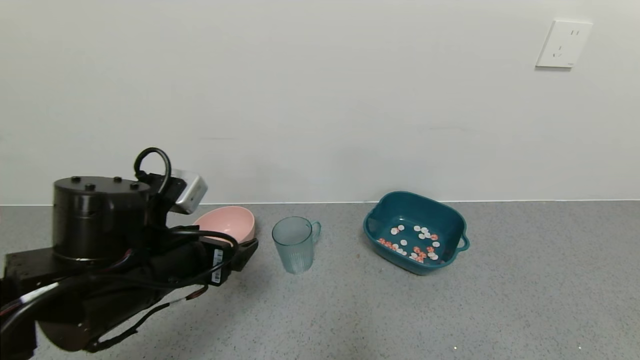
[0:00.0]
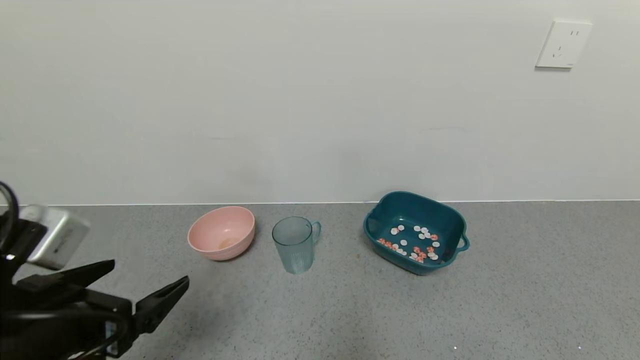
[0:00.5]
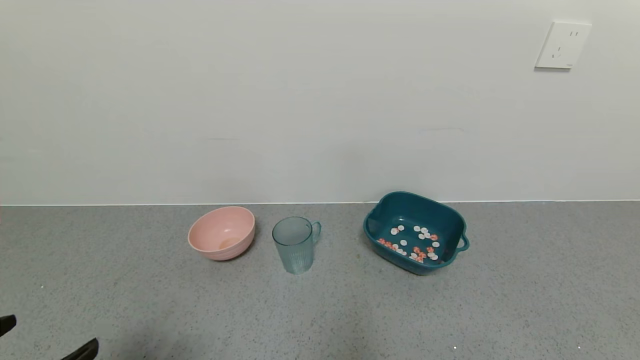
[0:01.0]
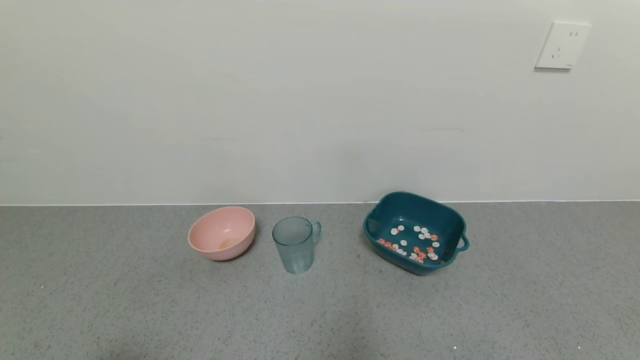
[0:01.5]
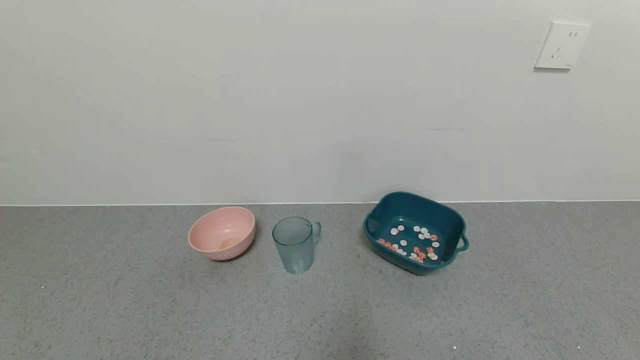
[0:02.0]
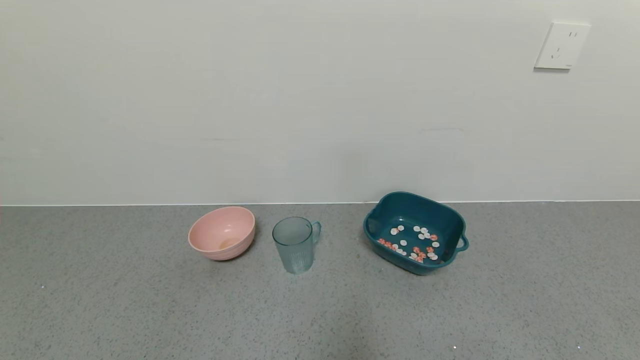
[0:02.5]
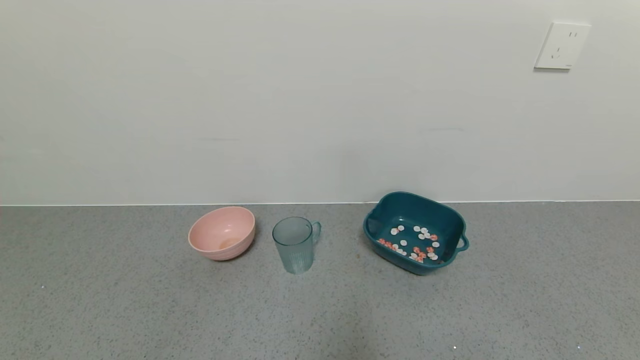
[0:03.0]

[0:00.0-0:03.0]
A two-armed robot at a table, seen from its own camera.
Task of the whole recording: use a gripper to pick up the cup and pour the solid into a bowl or tray.
0:00.0 to 0:01.5: The left gripper shifts approximately 20 cm backward and to the left.
